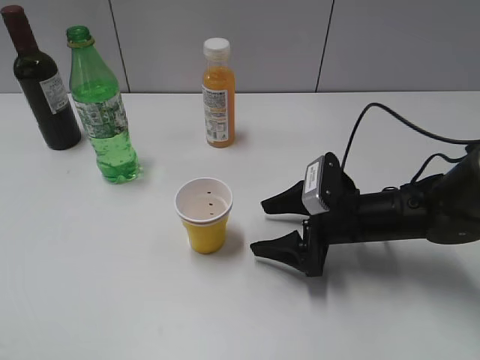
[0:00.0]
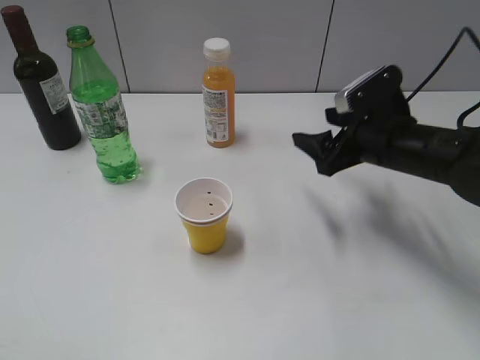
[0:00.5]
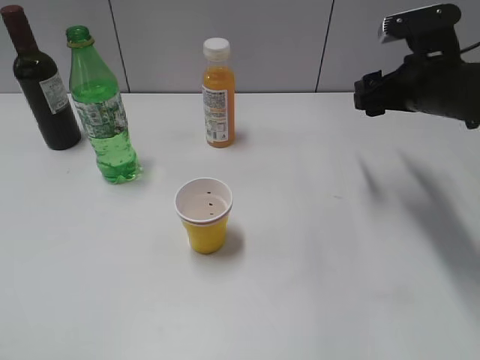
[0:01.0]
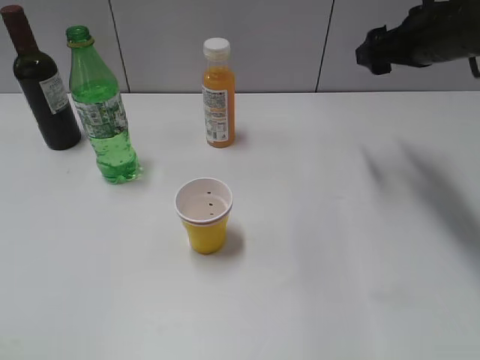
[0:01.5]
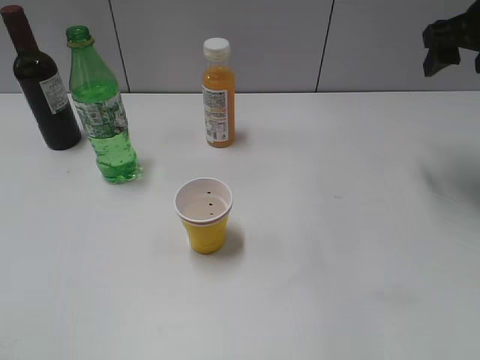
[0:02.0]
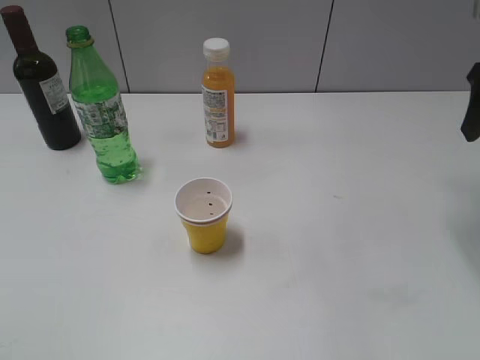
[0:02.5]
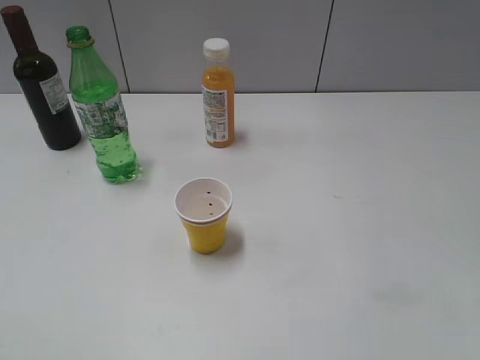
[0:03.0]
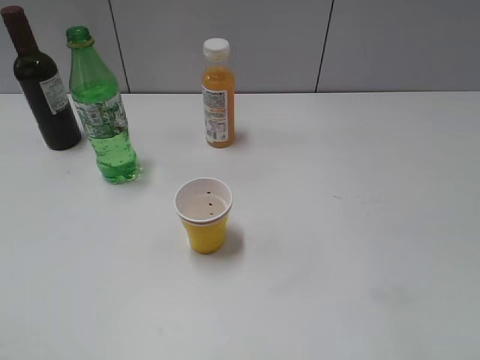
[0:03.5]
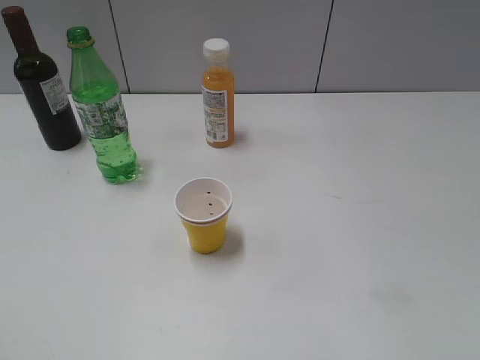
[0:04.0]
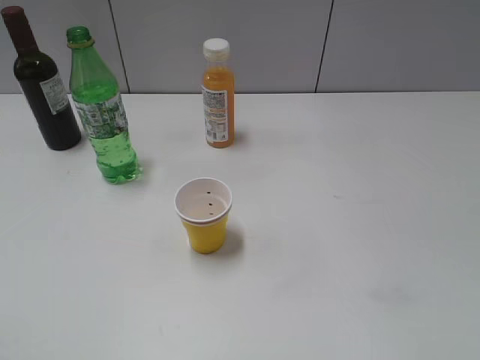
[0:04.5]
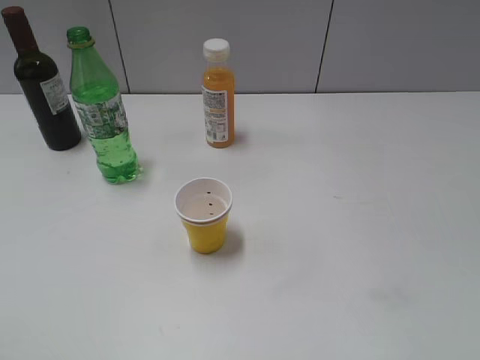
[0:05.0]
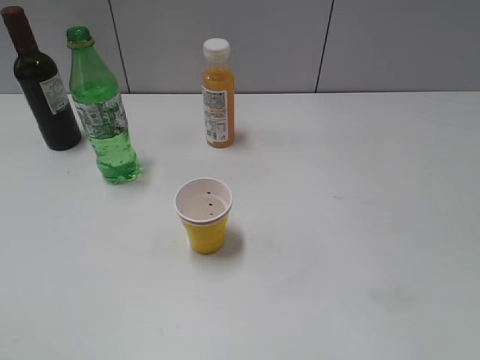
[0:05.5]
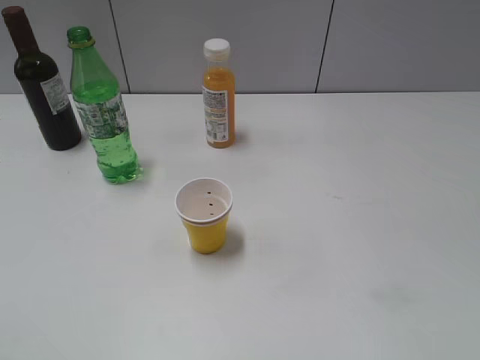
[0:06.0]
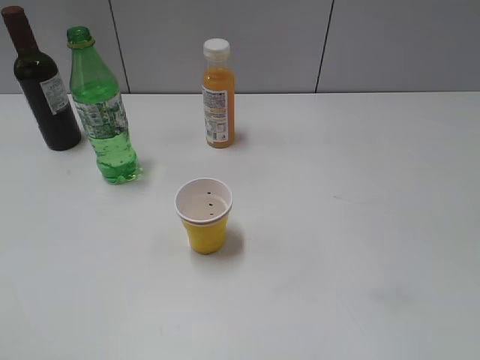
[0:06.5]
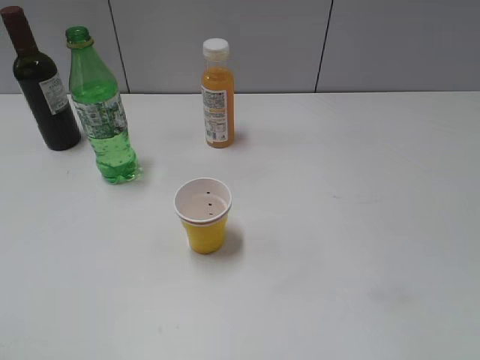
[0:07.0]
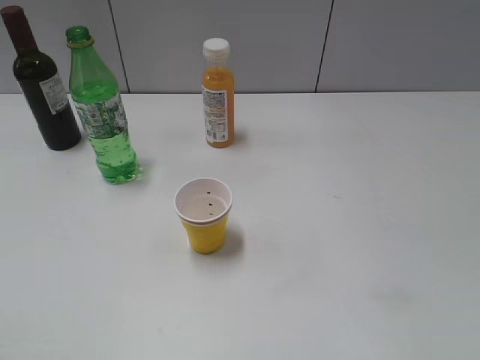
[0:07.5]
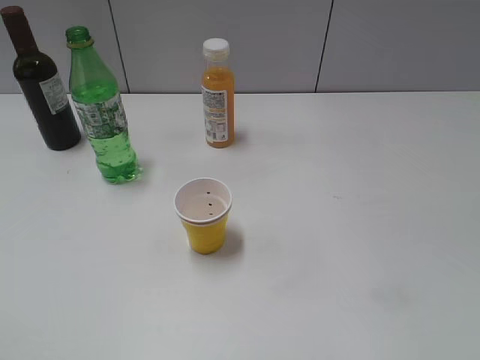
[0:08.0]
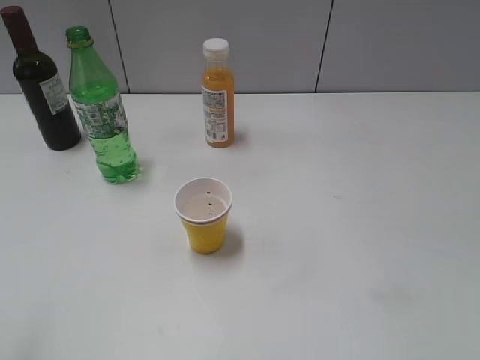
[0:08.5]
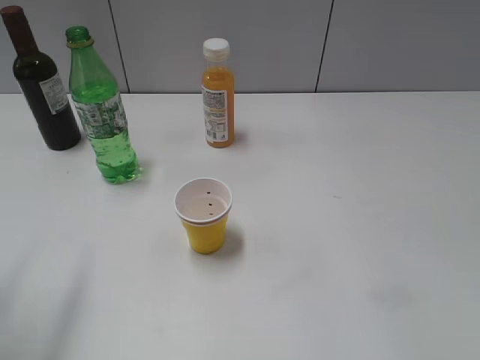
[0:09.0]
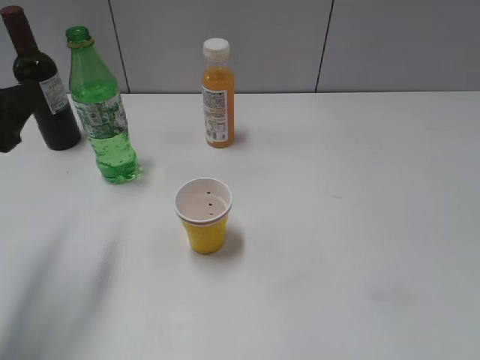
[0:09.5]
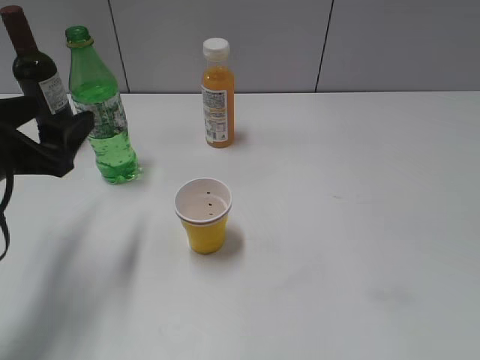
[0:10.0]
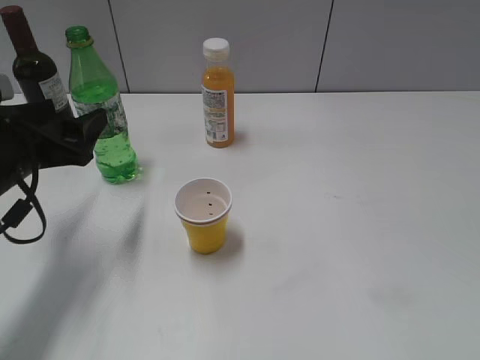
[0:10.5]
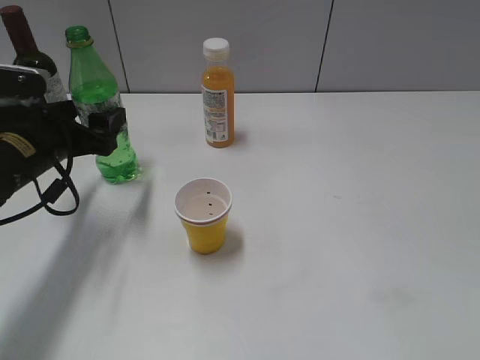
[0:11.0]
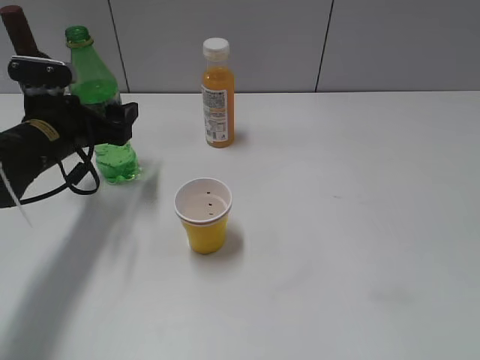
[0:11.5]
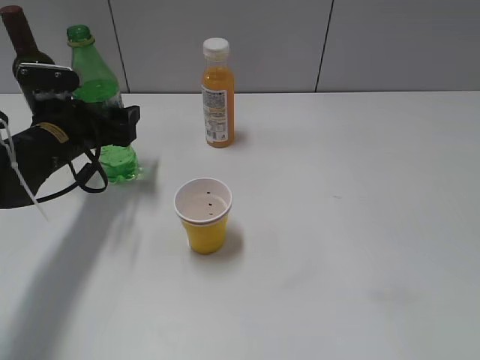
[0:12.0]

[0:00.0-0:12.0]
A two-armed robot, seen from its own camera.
0:00.0 to 0:02.0: The right gripper moves upward, to the right and forward, approximately 30 cm.
0:02.0 to 0:04.0: The right gripper travels backward by approximately 35 cm.
0:08.0 to 0:10.0: The left gripper travels forward and downward by about 25 cm.
0:10.0 to 0:12.0: The left gripper moves forward and downward, approximately 15 cm.

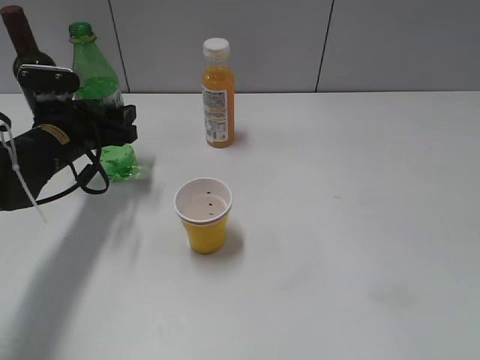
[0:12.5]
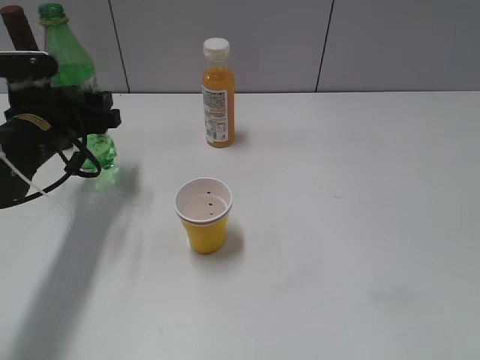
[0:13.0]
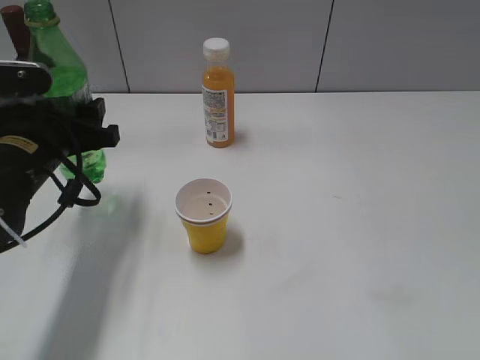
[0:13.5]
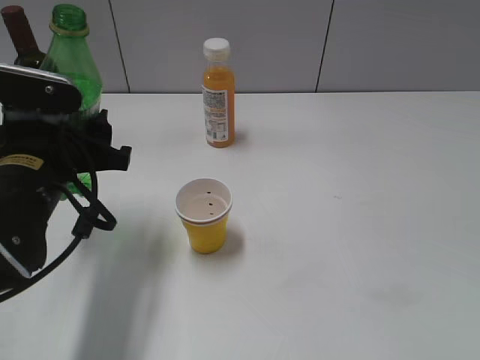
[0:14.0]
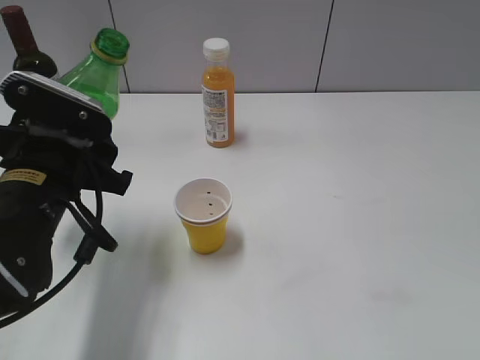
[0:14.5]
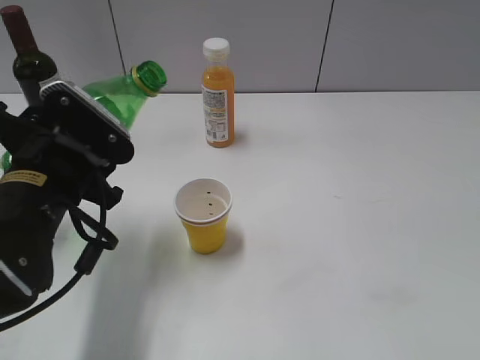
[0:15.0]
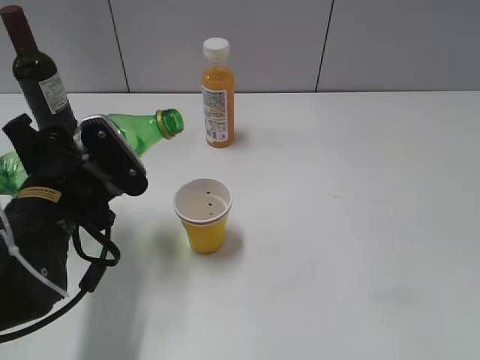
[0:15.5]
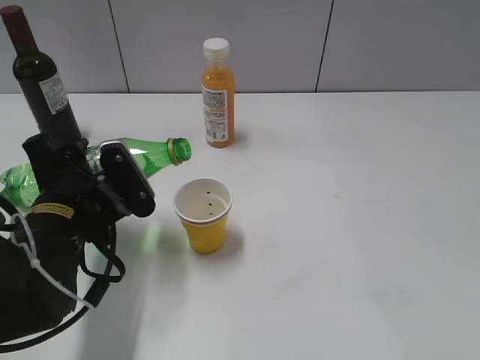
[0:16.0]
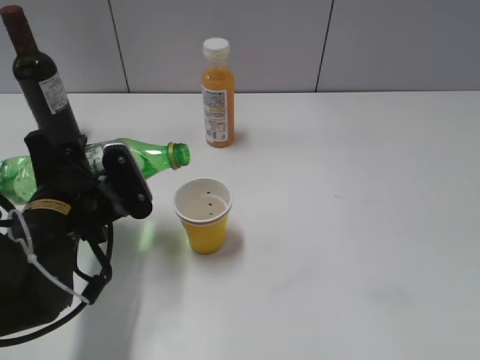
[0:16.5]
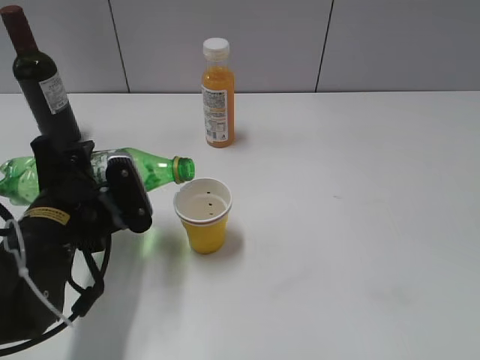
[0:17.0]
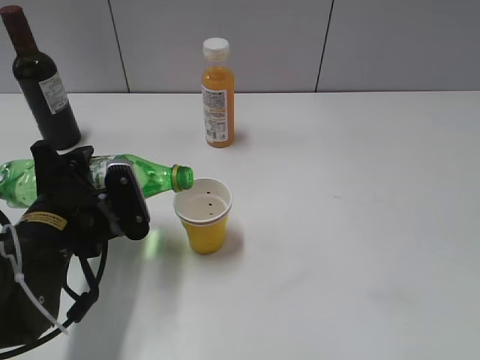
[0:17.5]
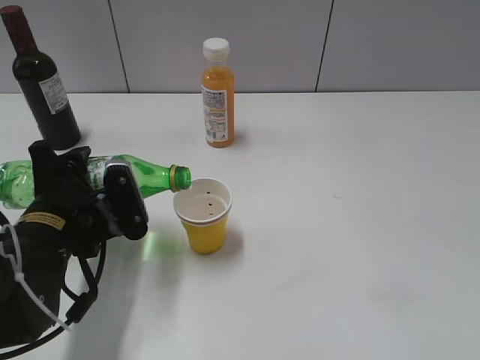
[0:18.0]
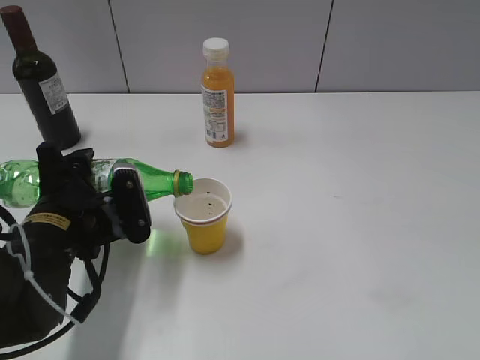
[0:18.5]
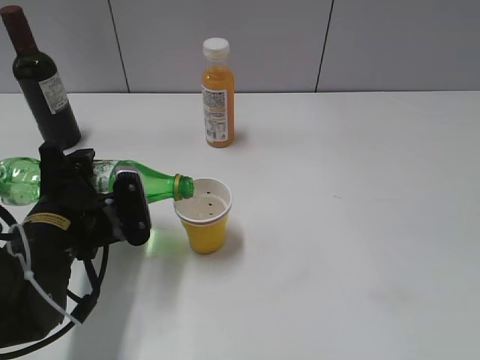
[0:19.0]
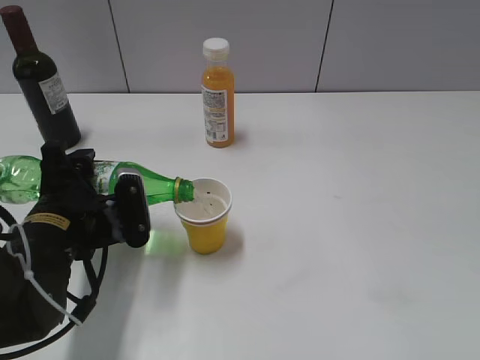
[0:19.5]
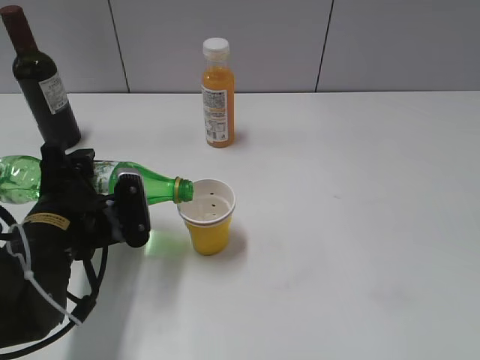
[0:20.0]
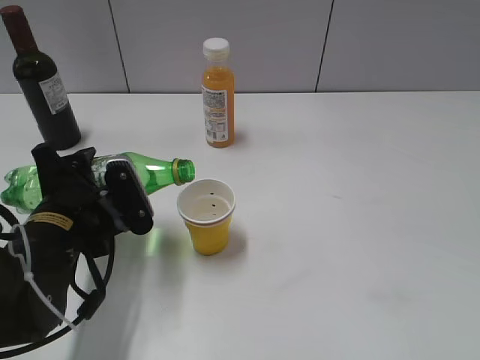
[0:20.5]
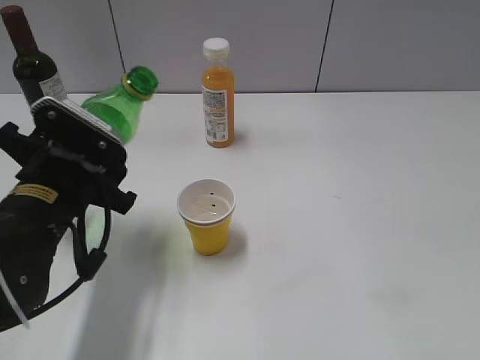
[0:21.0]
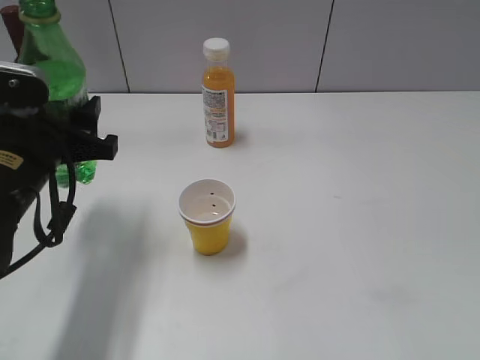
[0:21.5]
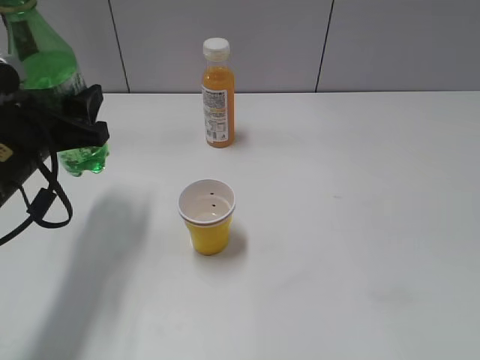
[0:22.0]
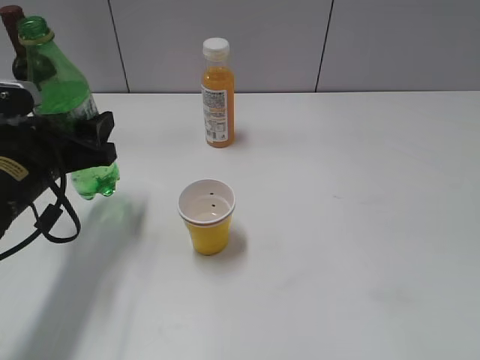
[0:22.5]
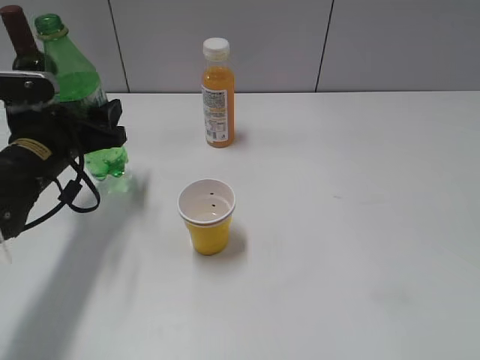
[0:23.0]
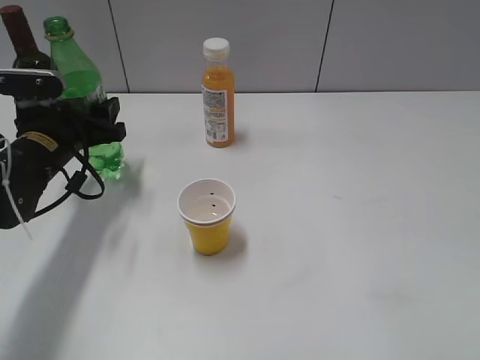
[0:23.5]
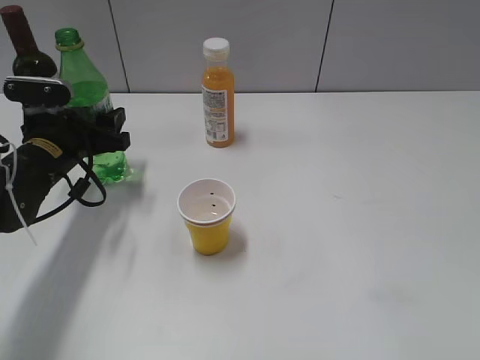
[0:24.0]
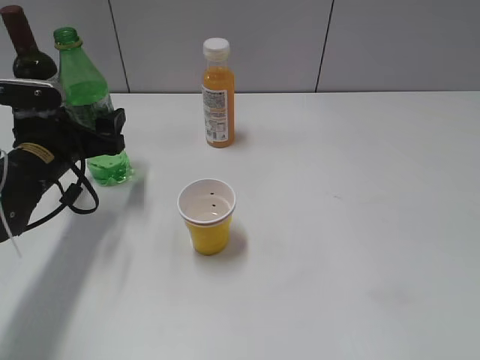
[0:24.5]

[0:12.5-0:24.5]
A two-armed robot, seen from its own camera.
Step, 0:13.0 to 0:20.5: Pour the sprite from bottle to cup with left gripper.
0:12.5 to 0:14.5: The left gripper moves backward, approximately 15 cm.
0:14.5 to 0:16.5: The left gripper shifts by some 5 cm.
0:16.5 to 0:20.5: The grippers stay close to where they were, moving slightly.
0:20.5 to 0:22.5: The left gripper changes place by approximately 5 cm.
0:22.5 to 0:24.5: The left gripper heads forward, covering roughly 5 cm, and opens its fingers.

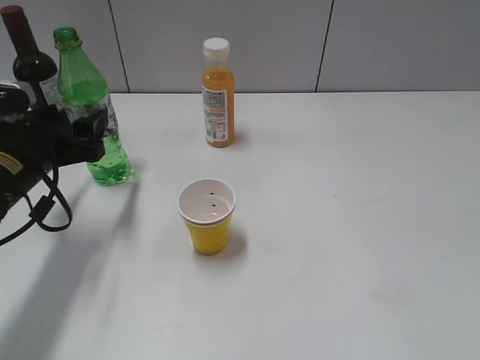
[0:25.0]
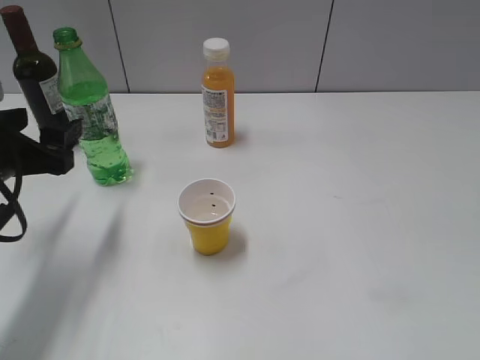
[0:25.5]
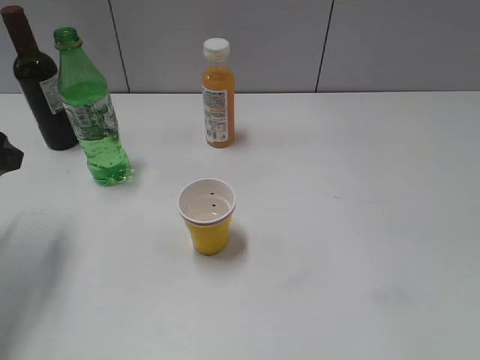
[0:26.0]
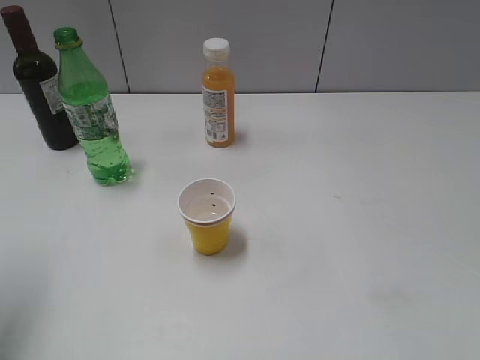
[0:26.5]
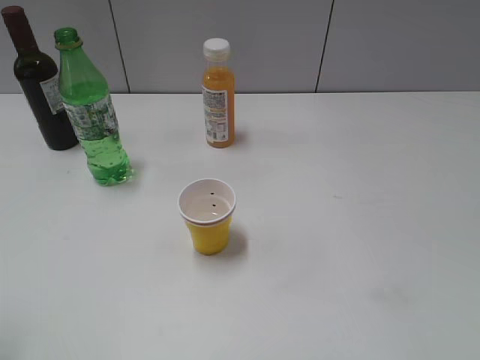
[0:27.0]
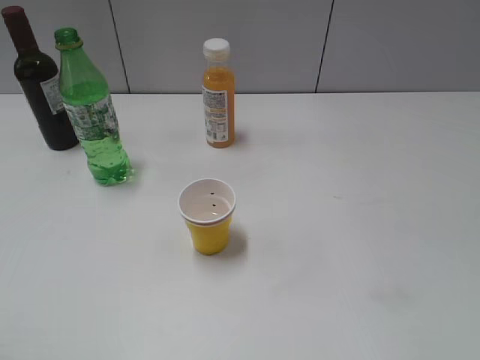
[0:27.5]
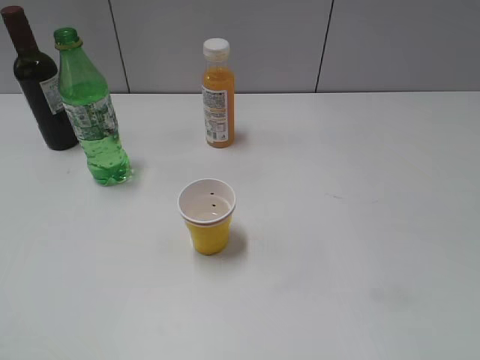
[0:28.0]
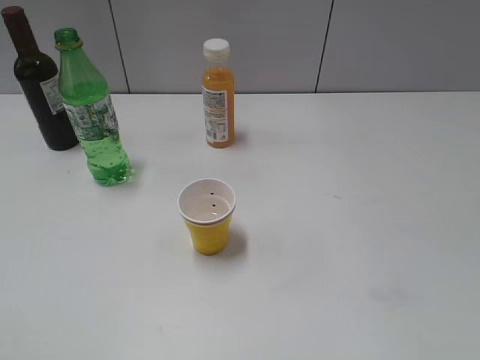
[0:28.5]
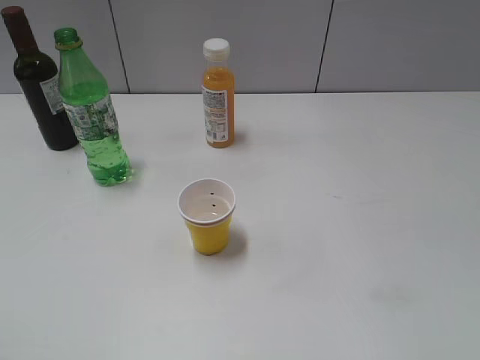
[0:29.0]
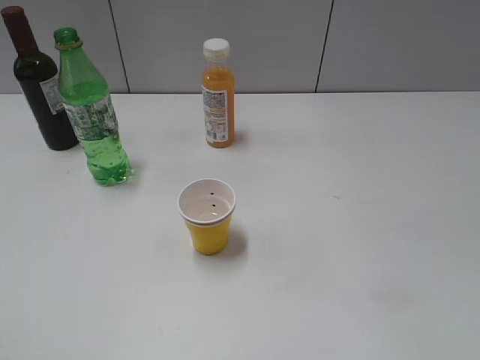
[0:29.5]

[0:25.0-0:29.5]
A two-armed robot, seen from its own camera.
0:25.0 to 0:27.0: The left gripper moves backward and upward, roughly 25 cm.
